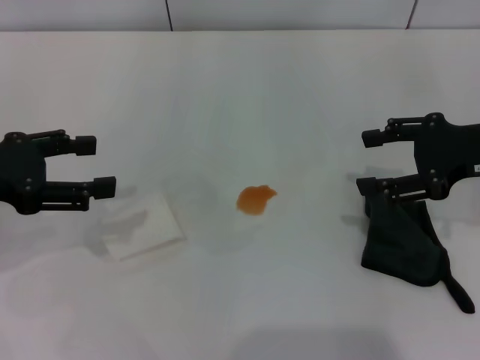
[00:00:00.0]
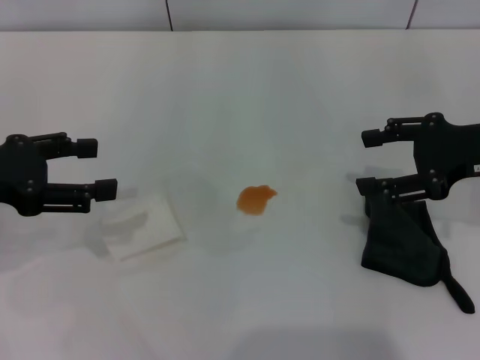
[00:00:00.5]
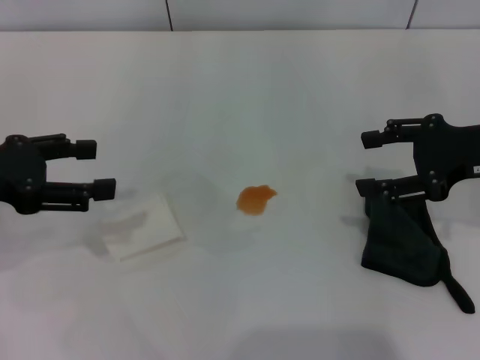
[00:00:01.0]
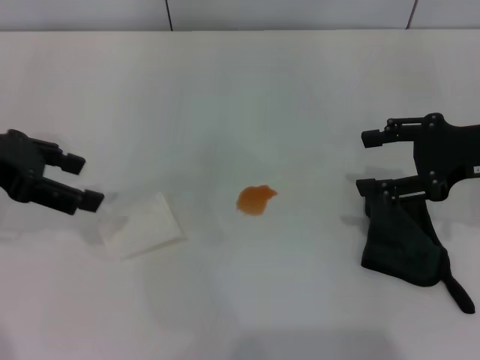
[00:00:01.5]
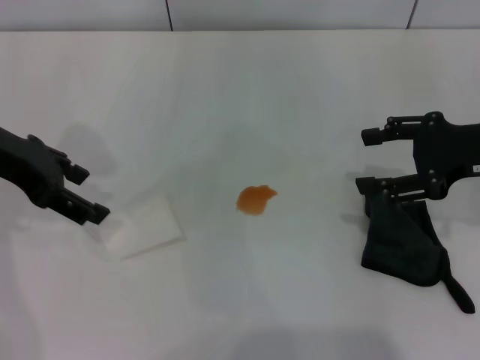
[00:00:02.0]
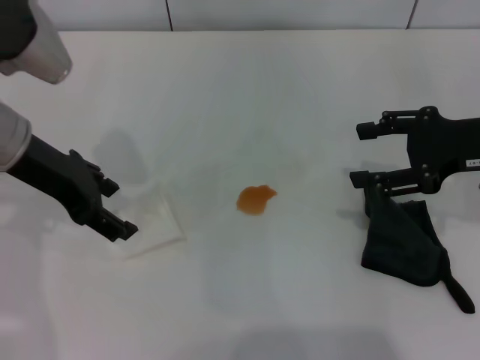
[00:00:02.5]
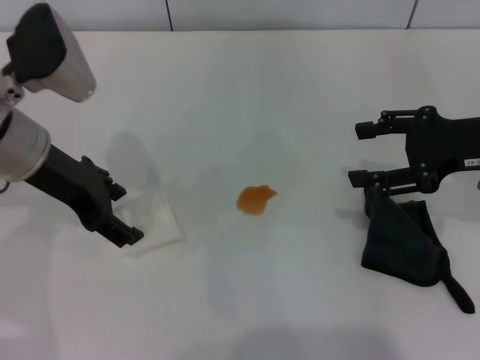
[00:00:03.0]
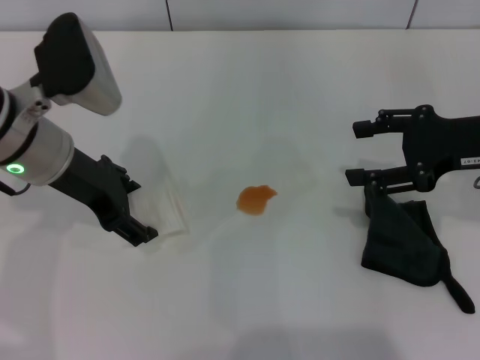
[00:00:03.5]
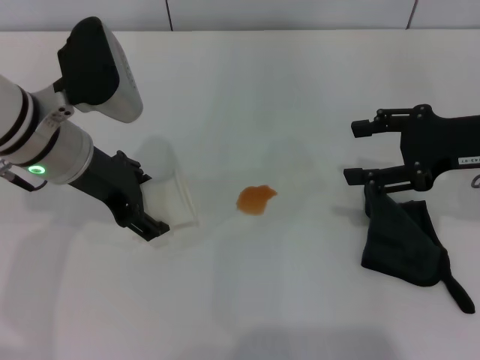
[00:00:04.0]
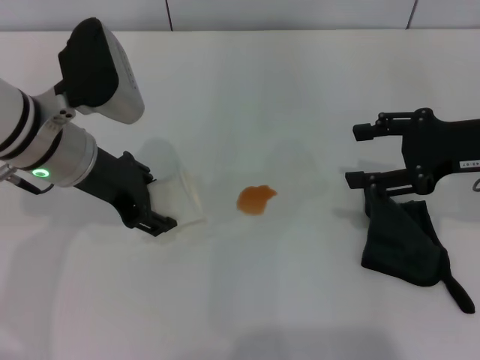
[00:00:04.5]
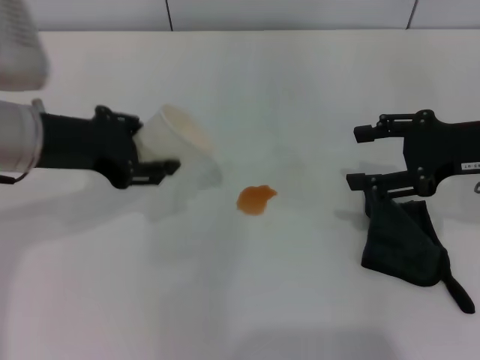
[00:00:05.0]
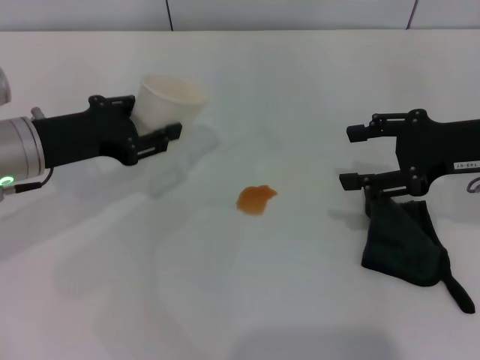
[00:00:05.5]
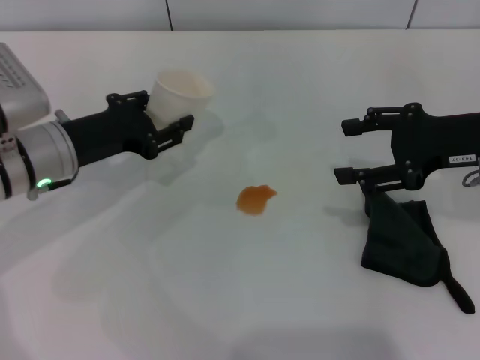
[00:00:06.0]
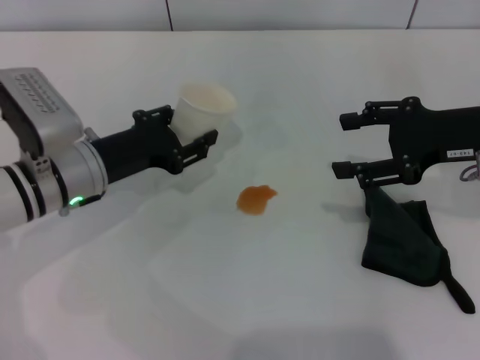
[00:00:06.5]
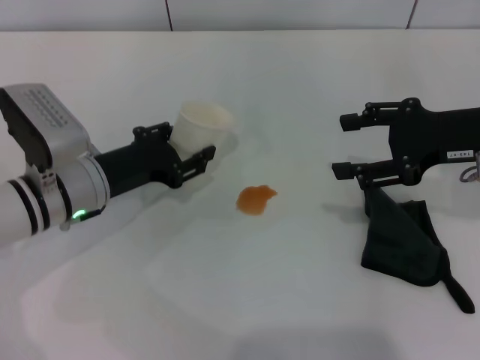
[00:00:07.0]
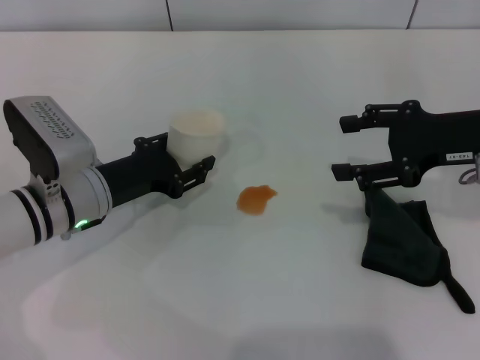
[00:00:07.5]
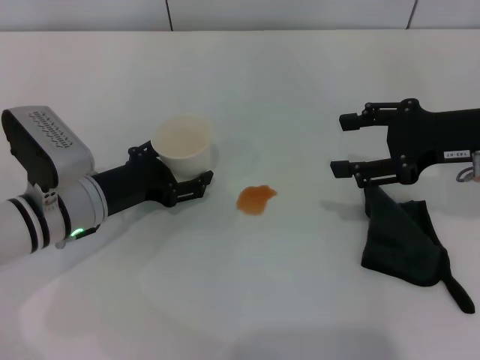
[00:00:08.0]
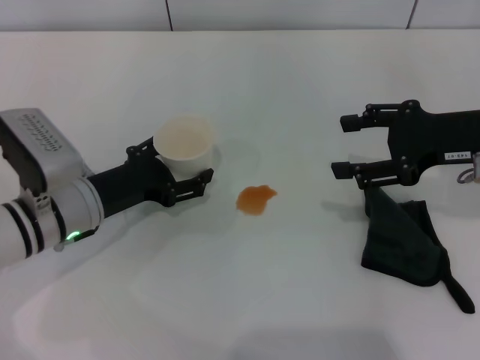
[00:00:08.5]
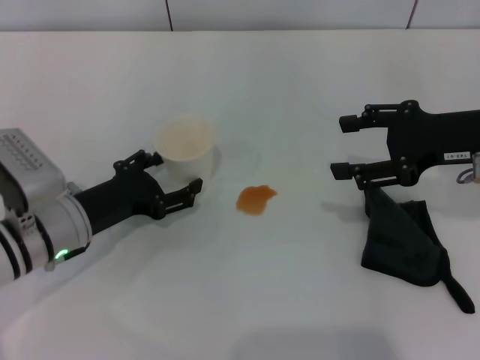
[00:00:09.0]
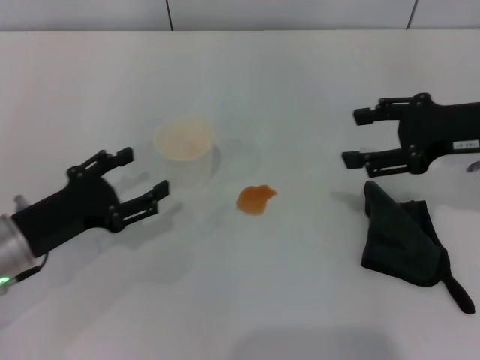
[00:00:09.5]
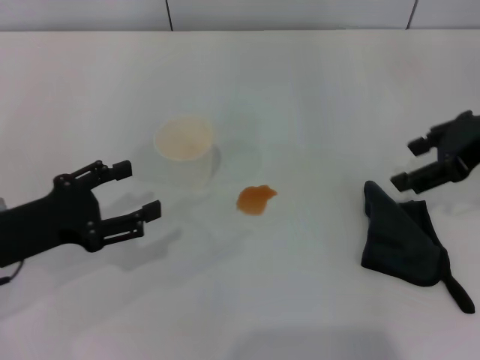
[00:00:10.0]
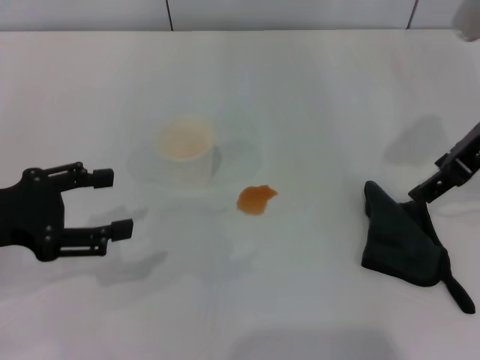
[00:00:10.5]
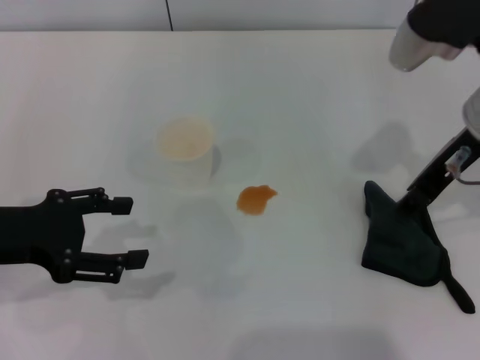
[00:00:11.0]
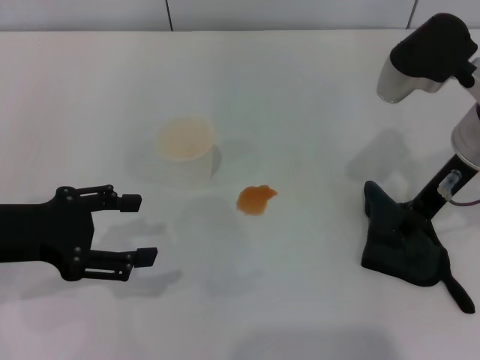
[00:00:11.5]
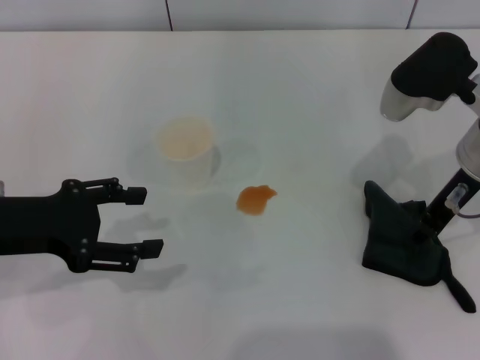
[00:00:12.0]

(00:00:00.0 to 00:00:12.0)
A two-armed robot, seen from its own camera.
Step, 00:00:00.0 - 00:00:04.0: Grasp the paper cup with the left gripper.
Step, 00:00:04.5 - 00:00:09.0: Stand the paper cup upright with the left gripper.
00:00:00.0 - 00:00:02.0: The left gripper goes roughly 5 cm forward.
00:00:02.0 - 00:00:04.0: The left gripper moves to the right and downward, roughly 10 cm.
00:00:04.0 - 00:00:06.0: The left gripper travels downward by roughly 5 cm, and closes up.
00:00:06.0 - 00:00:08.0: The left gripper travels downward by some 5 cm, and opens its fingers.
00:00:08.0 - 00:00:10.0: The left gripper moves to the left and backward, some 10 cm.
00:00:10.0 - 00:00:12.0: The right gripper moves to the left, roughly 10 cm. Meanwhile the left gripper goes about 5 cm upward.

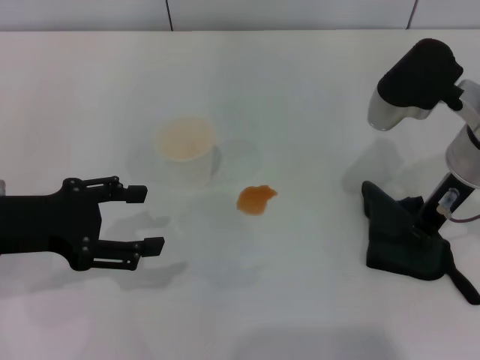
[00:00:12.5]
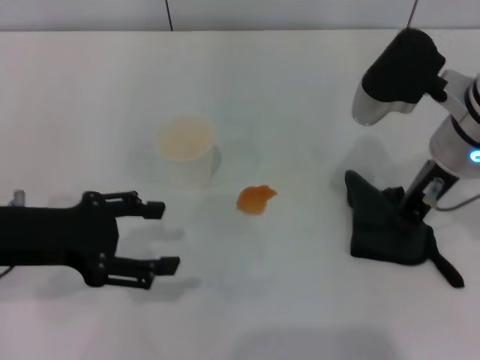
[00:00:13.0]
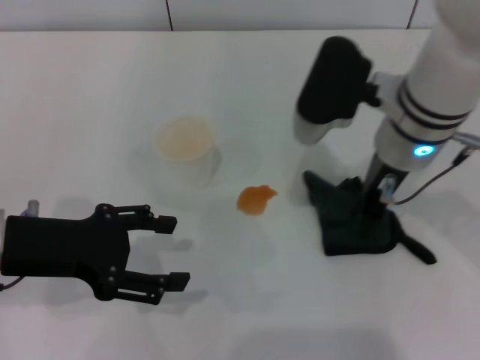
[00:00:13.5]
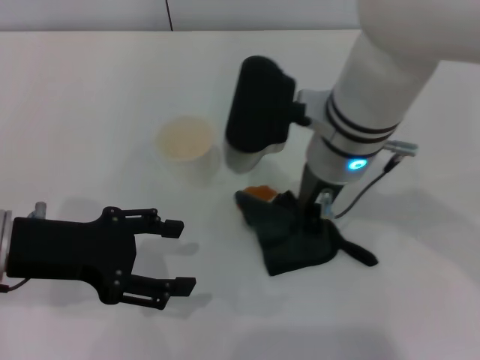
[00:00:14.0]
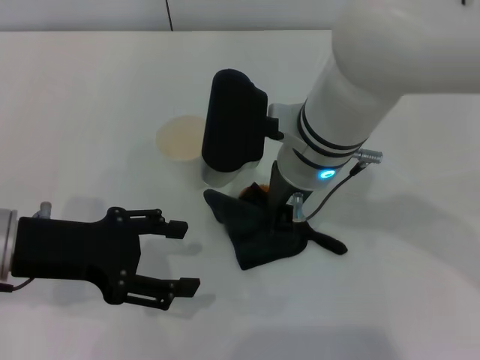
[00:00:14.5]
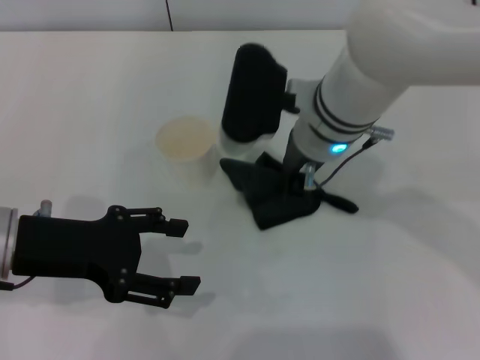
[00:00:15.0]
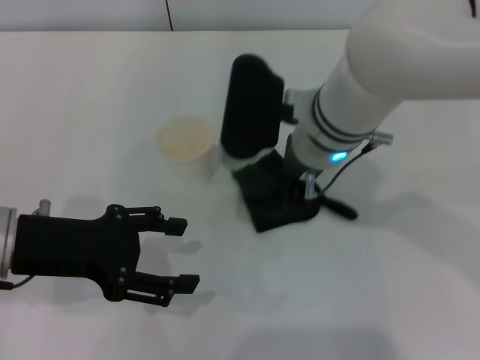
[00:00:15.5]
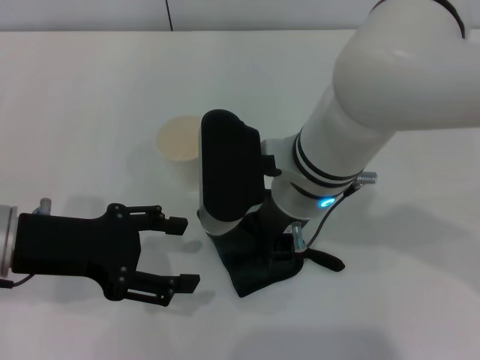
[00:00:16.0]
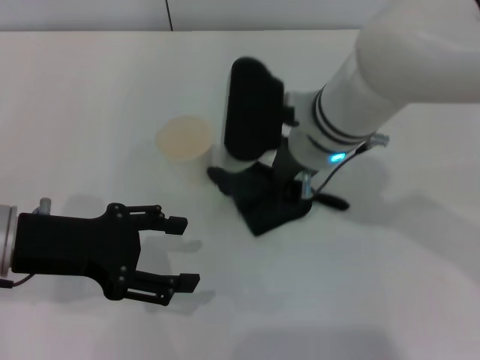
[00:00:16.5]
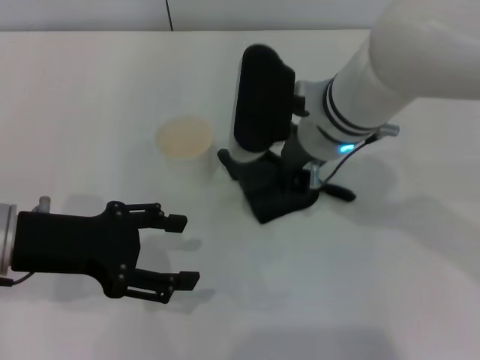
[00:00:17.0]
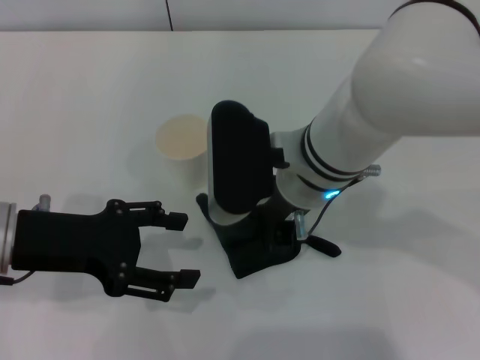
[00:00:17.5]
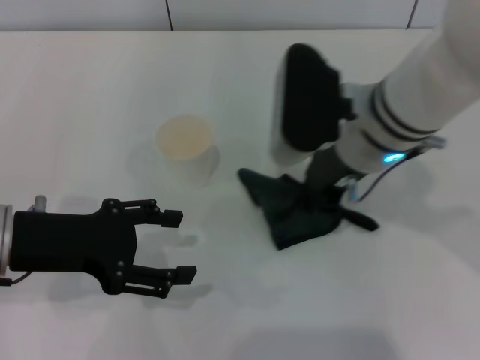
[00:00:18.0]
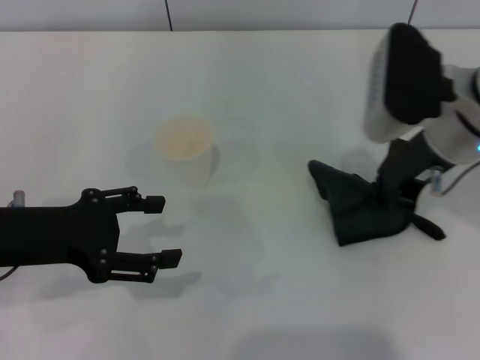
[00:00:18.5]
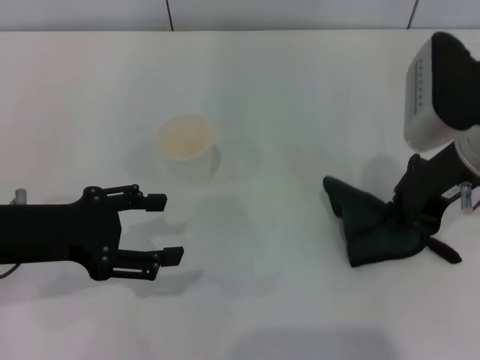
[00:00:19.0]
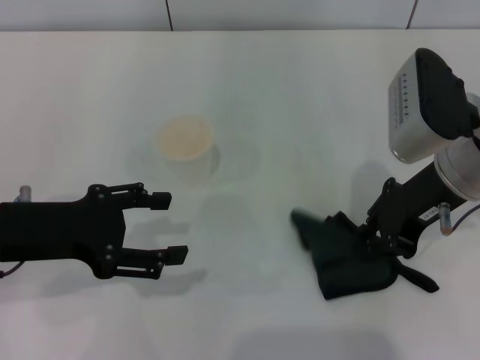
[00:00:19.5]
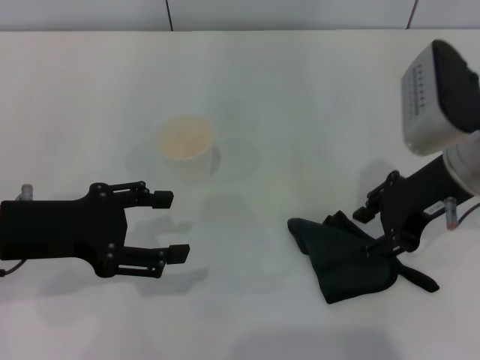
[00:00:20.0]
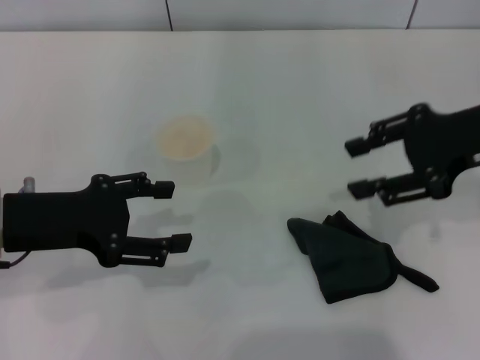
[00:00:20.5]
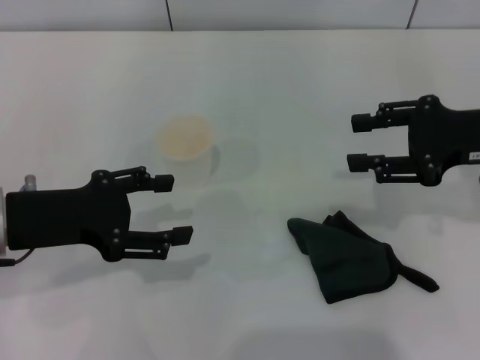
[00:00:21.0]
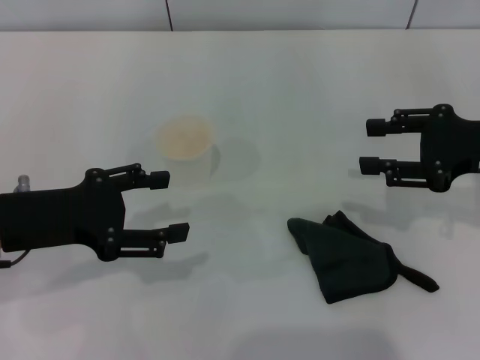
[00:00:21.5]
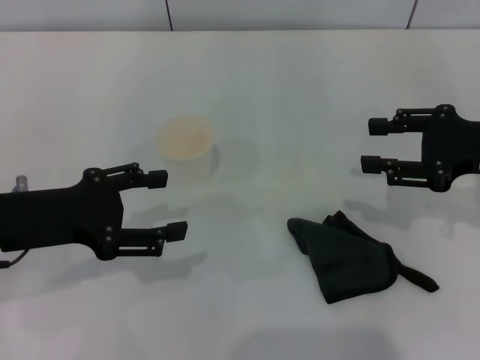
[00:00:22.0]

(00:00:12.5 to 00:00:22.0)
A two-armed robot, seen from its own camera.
Step, 00:00:13.0 - 00:00:18.0: Wipe the stains off the table with the right gripper.
Step, 00:00:18.5 - 00:00:20.0: Place the rag on the table with the right gripper.
00:00:12.5 - 00:00:14.5: The right gripper travels to the left by about 15 cm, and closes up.
00:00:14.5 - 00:00:16.5: The grippers stay close to where they were, moving slightly.
00:00:18.0 - 00:00:20.0: The right gripper heads to the right, covering some 10 cm, and opens its fingers.
00:00:20.0 - 00:00:22.0: The right gripper shifts approximately 10 cm to the right.
